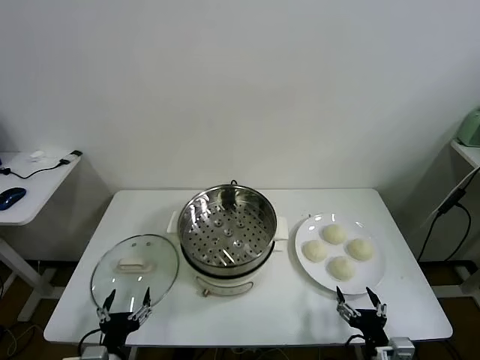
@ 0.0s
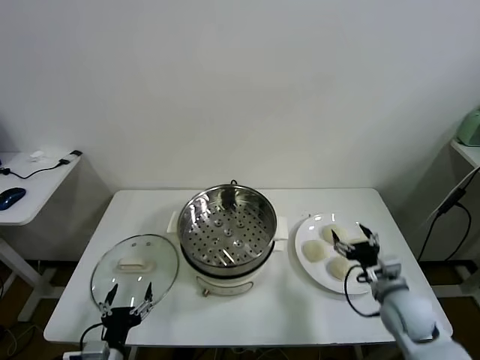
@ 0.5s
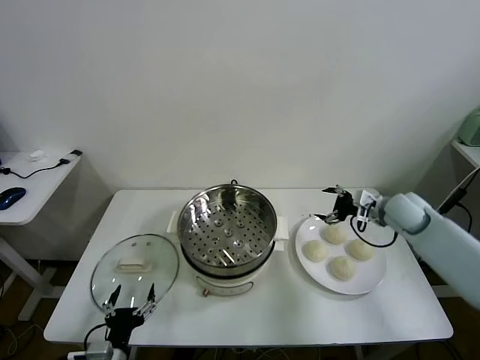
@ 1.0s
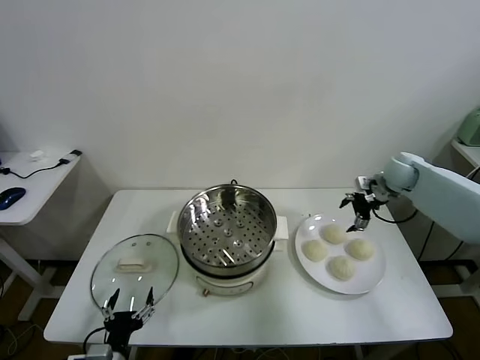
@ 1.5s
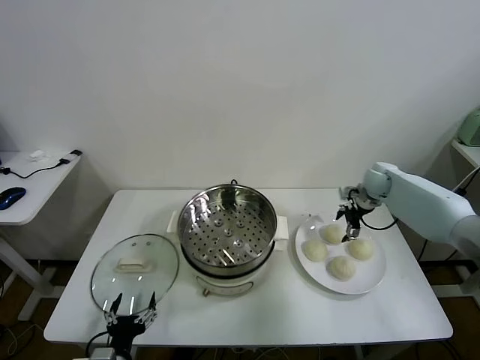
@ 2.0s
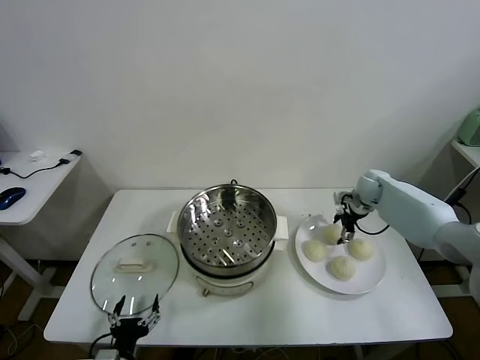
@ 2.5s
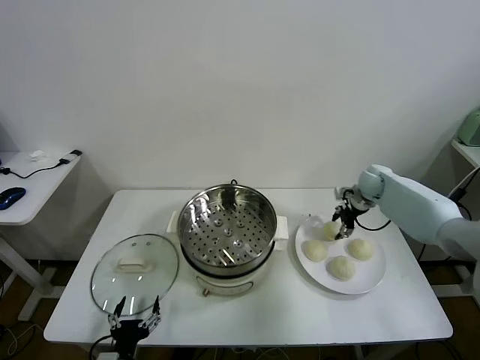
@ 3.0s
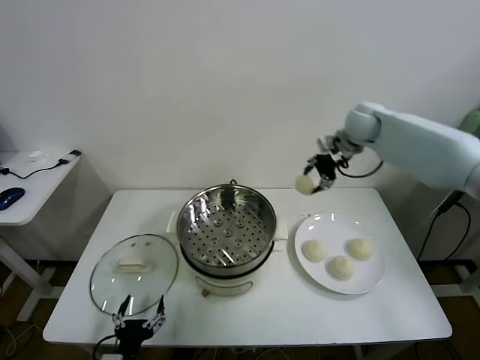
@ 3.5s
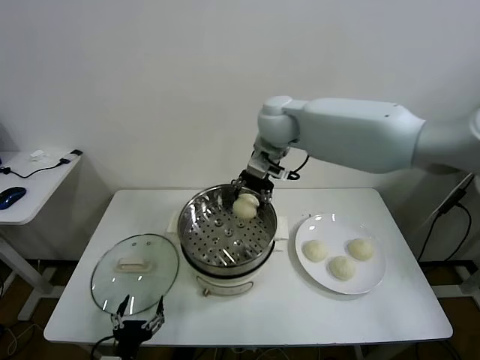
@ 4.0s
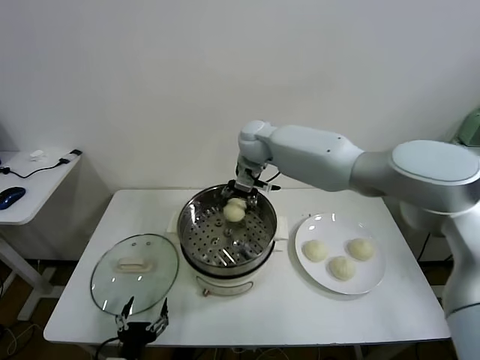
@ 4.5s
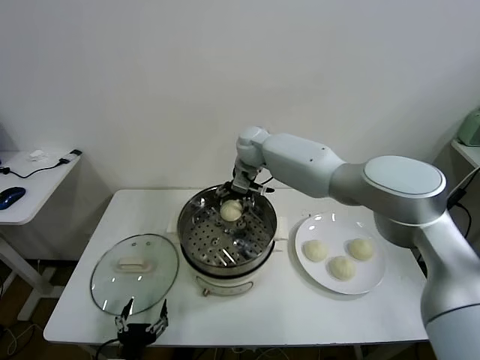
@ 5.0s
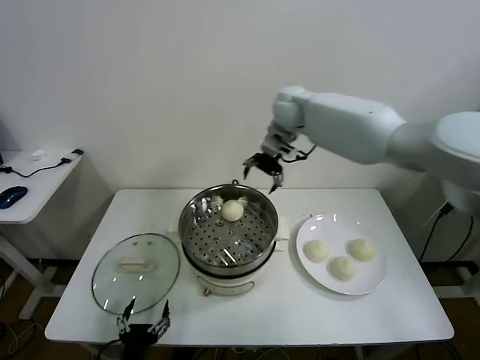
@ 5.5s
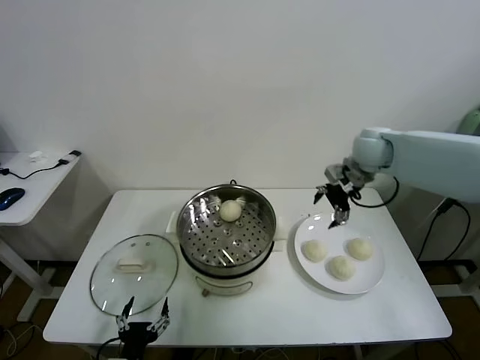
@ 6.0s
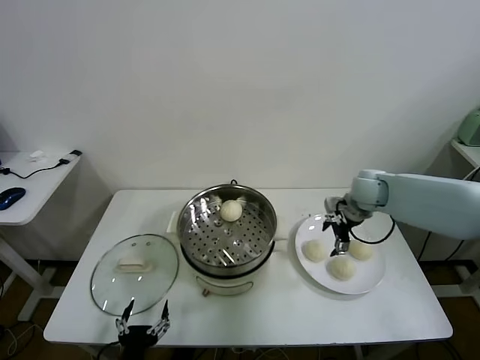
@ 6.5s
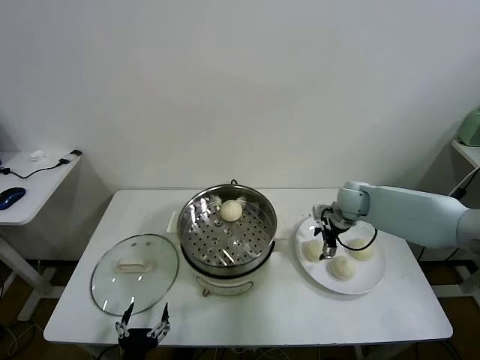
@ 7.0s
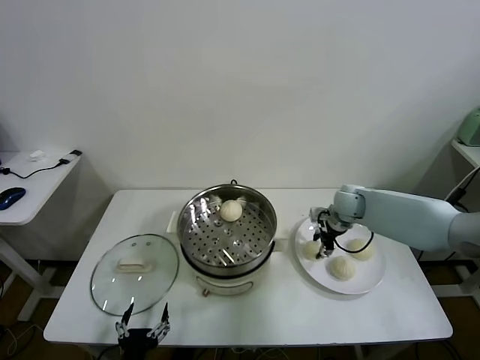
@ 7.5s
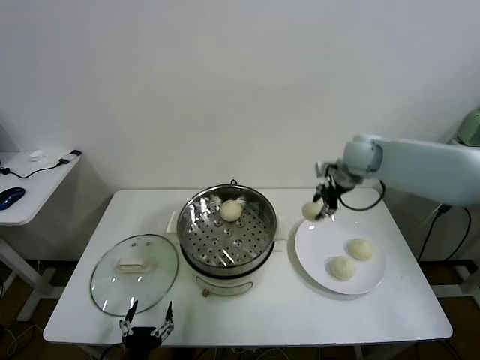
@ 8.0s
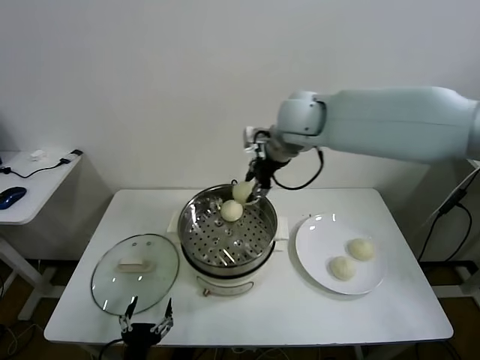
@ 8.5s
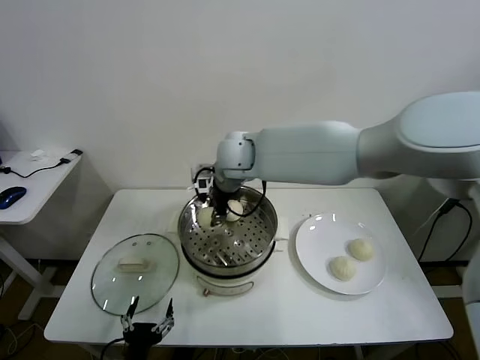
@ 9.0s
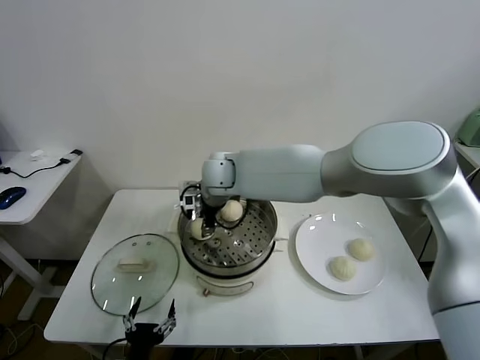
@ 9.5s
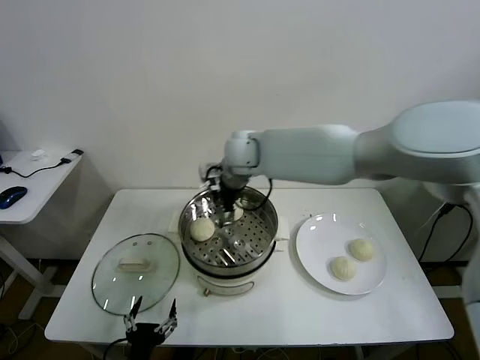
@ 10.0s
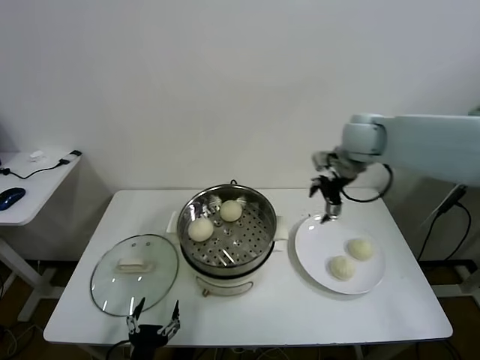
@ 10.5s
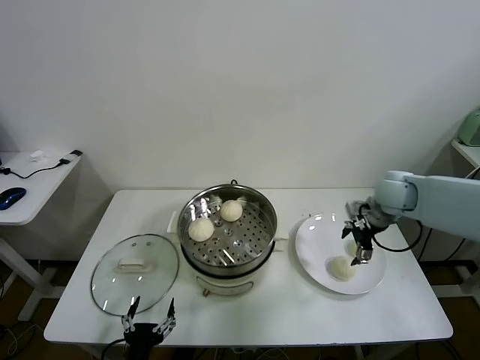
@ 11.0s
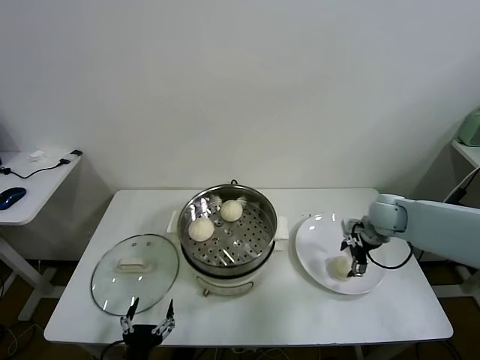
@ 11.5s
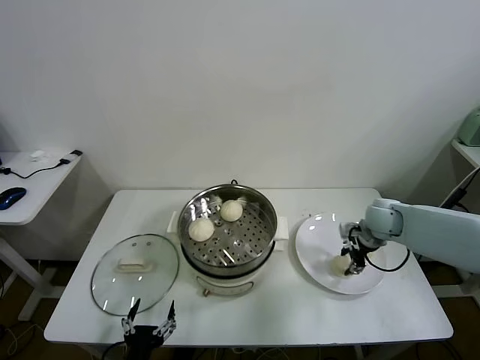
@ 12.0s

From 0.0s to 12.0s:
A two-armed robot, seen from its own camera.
Task of the whole recording: take steamed baozi put them in steamer.
Step, from 0.0s to 2.5s: Grasp the baozi in the plate with right gripper.
Step, from 3.0s to 5.0s: Place the baozi on the steamer with right gripper.
Step, from 5.5s to 7.5s: Grasp the baozi in the plate with right gripper.
Step, from 8.0s to 9.5s: Place the baozi on the steamer with right gripper.
Step, from 10.0s to 12.0s: Grasp the baozi in the plate with right gripper.
From 2.0s to 4.0s: The right gripper shifts some 40 cm to the left and upward, and closes.
From 4.0s to 6.0s: The right gripper is displaced to the right by roughly 25 cm, and opens.
From 6.0s to 8.0s: The right gripper reaches roughly 15 cm downward, then returns, and closes its fingers.
From 8.0s to 10.0s: The right gripper travels to the left by roughly 25 cm, and opens its fingers.
From 10.0s to 12.0s: The right gripper goes some 35 cm to the right and downward, and closes.

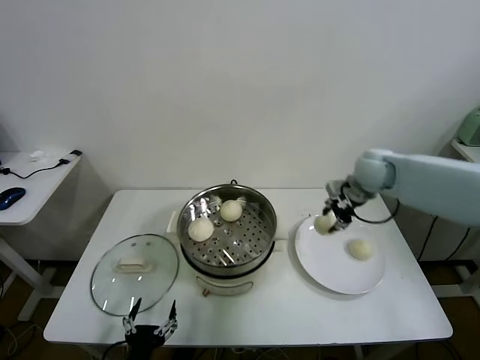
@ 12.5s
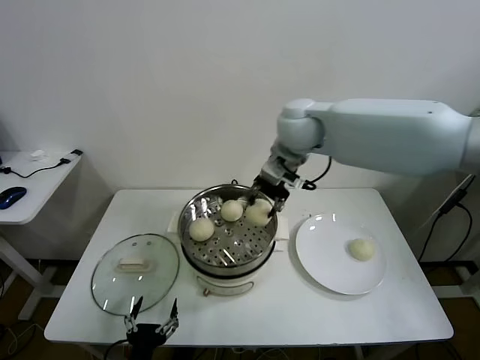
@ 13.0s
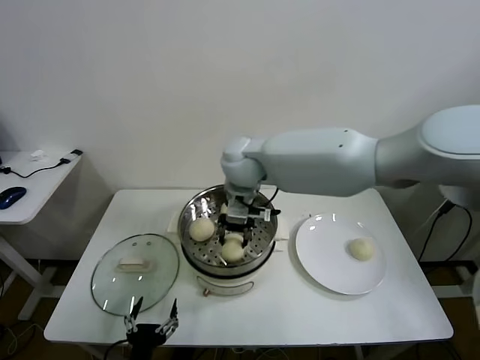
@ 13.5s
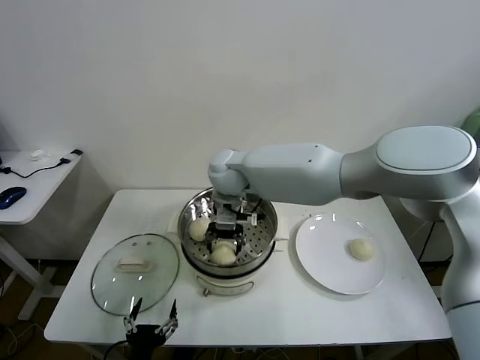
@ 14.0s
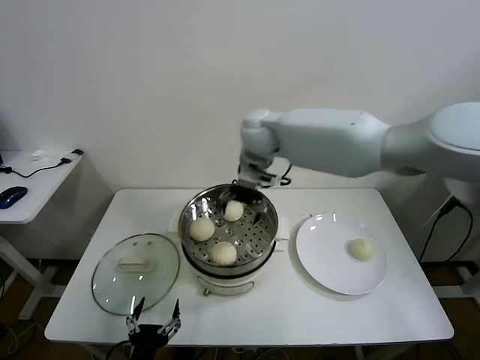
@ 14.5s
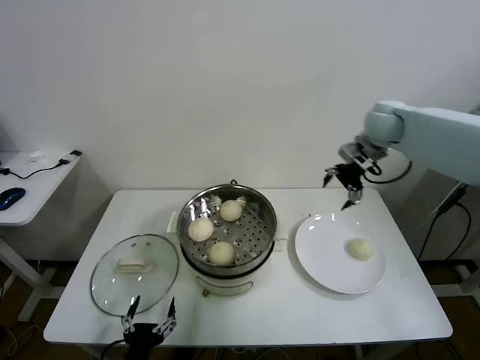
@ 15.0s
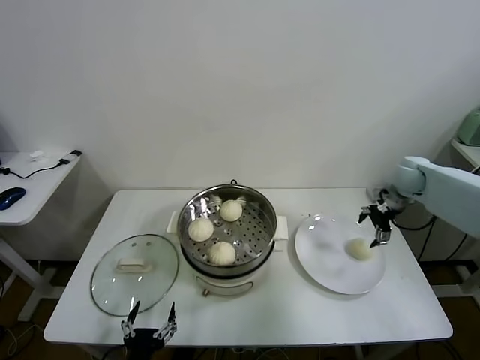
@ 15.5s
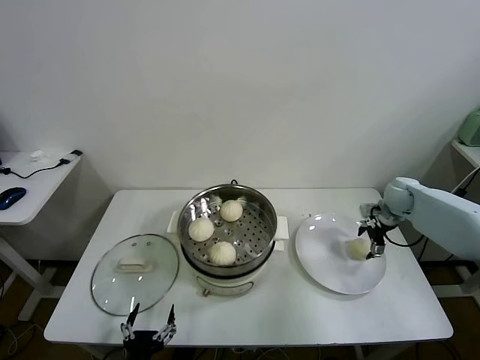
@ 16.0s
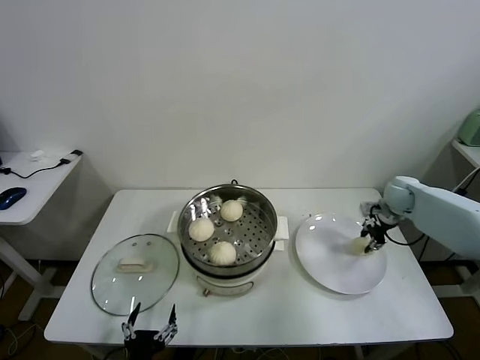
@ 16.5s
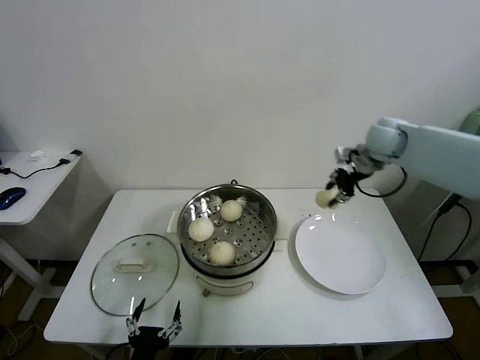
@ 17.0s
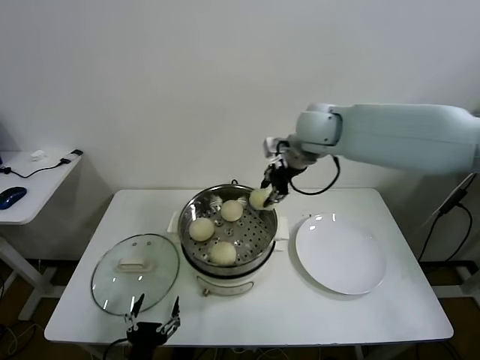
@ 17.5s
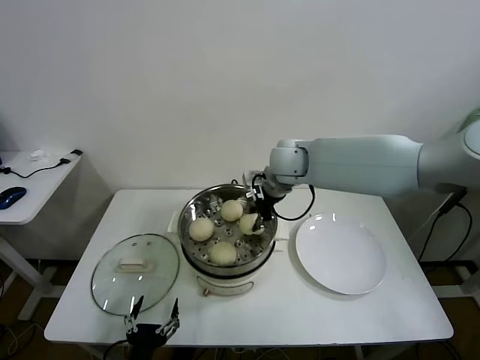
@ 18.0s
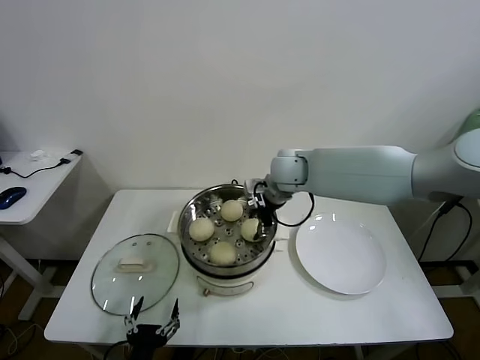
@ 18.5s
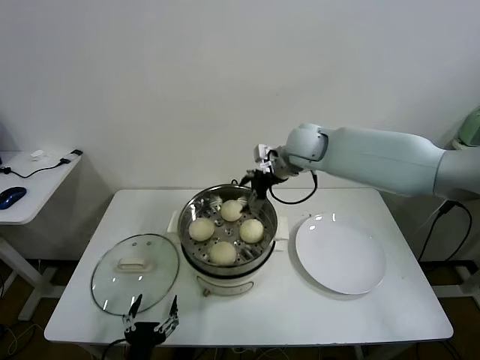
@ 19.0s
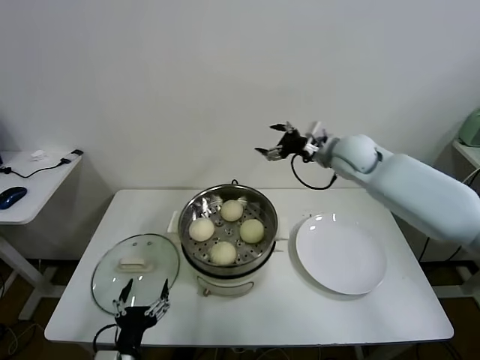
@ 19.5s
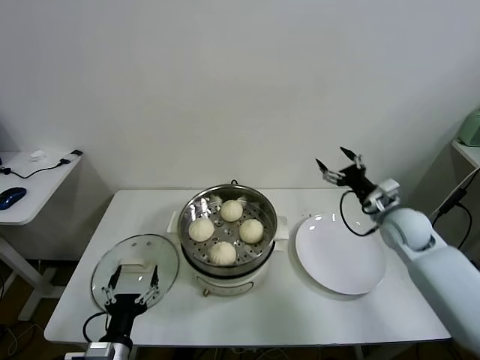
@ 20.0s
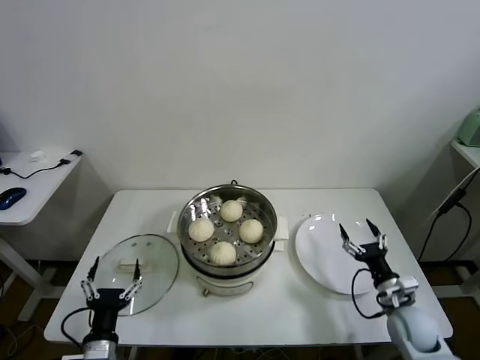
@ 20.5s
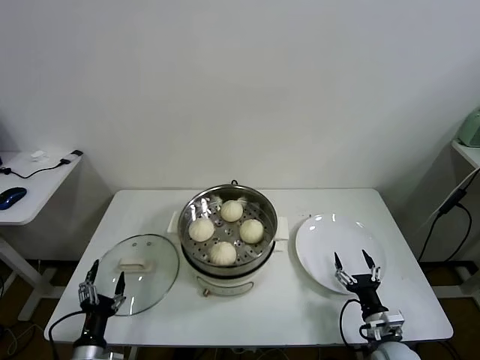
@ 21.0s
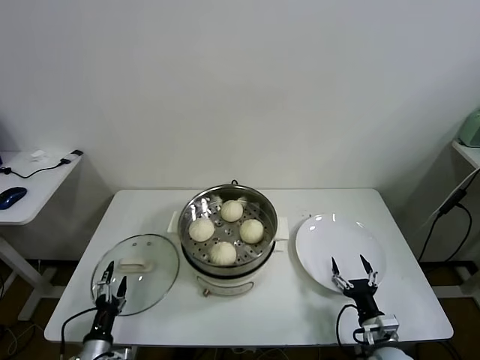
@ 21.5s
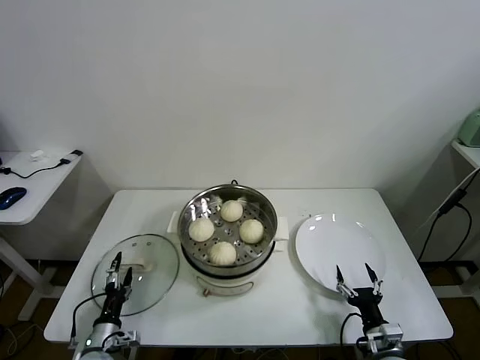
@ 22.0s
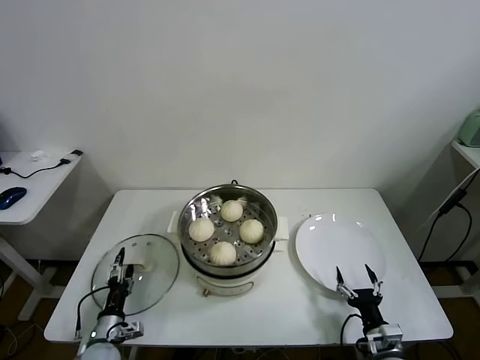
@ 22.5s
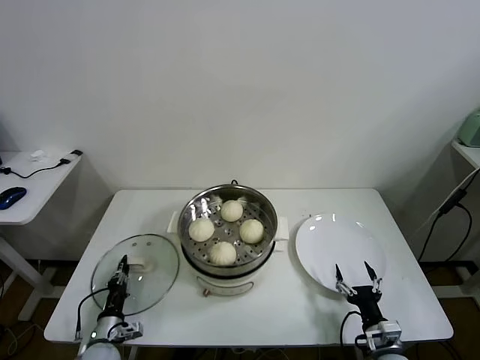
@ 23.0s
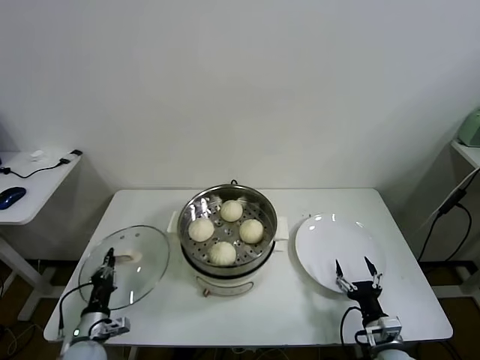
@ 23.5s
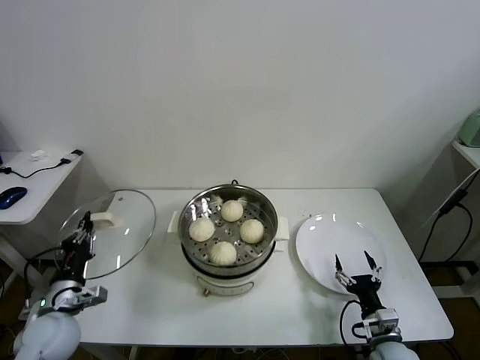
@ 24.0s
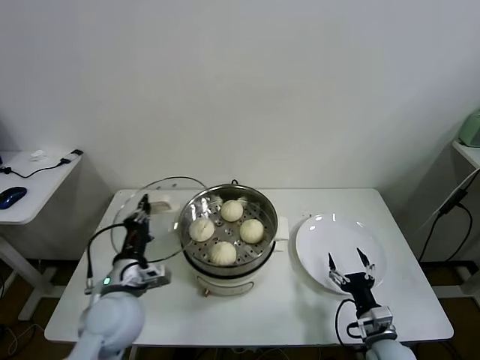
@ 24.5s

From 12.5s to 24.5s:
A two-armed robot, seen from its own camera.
Task of the whole recording: take steamed baozi put them in steamer.
Step, from 12.5s to 14.0s: Place the baozi on the steamer with right gripper.
Step, from 14.5s to 16.0s: Grasp the baozi in the plate with right gripper.
Step, from 16.5s to 18.5s: Place the baozi on the steamer with right gripper.
Step, from 19.0s to 23.0s: Grasp the pot lid with left gripper.
From 12.5s to 14.5s: The right gripper is displaced to the left by about 25 cm, and opens its fingers.
From 14.5s to 16.5s: The right gripper heads to the right and downward, covering roughly 40 cm, and closes its fingers.
From 16.5s to 18.5s: The right gripper shifts roughly 30 cm to the left, and opens.
From 18.5s to 20.5s: The right gripper travels to the right, downward and backward by about 40 cm, and opens up, while the left gripper goes about 5 cm to the left.
From 20.5s to 22.5s: The right gripper goes roughly 15 cm backward, downward and to the left; the left gripper shifts some 15 cm downward, forward and to the left.
From 22.5s to 24.5s: The left gripper shifts approximately 25 cm upward and to the right, and closes up.

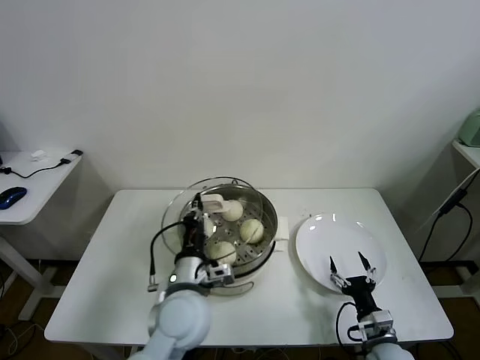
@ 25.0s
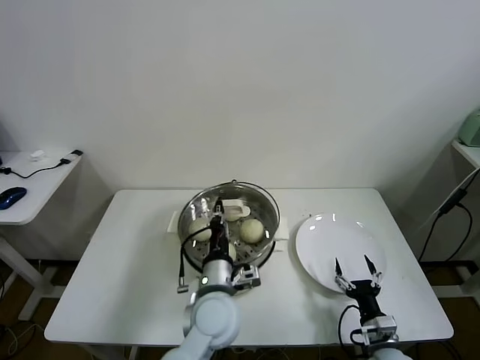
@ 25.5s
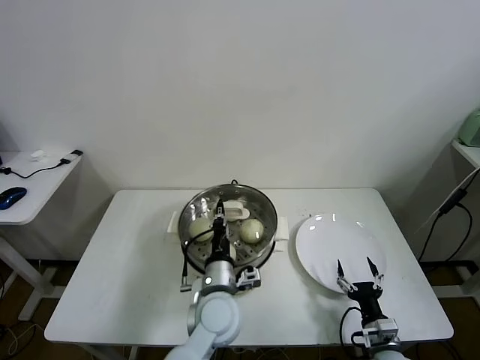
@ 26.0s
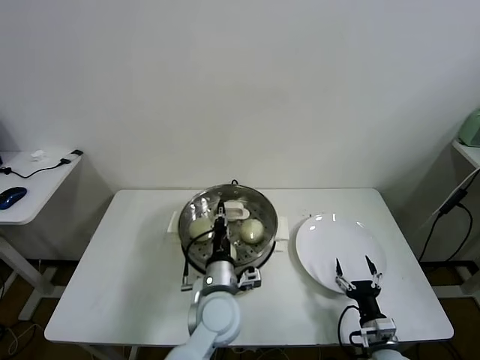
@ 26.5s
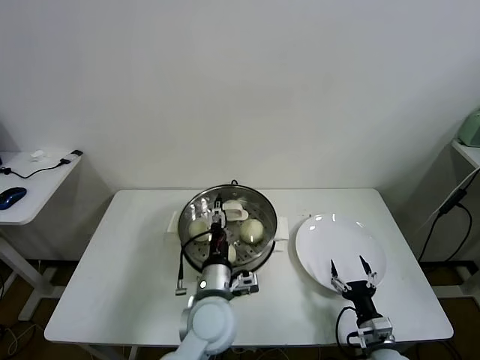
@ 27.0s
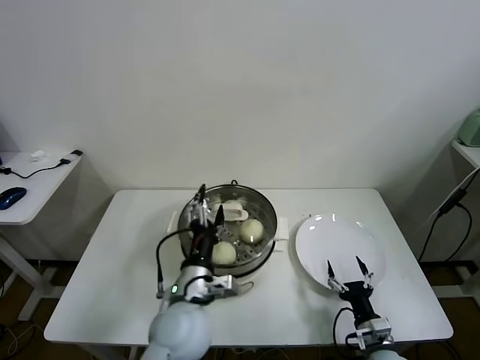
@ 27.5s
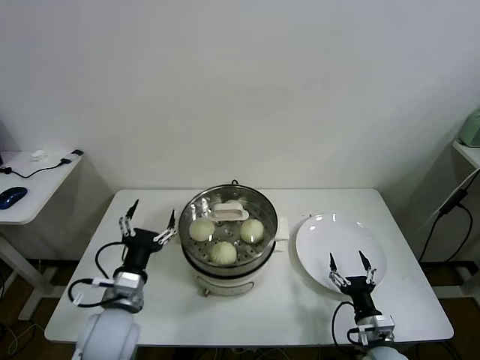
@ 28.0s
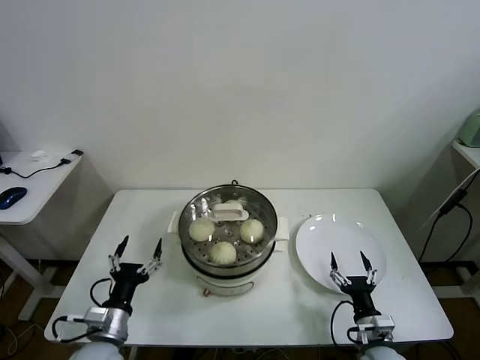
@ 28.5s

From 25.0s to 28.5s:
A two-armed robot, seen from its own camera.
Task of the whole recording: take steamed baozi put them in steamer.
From 25.0s to 27.0s: The left gripper is displaced to the right by approximately 5 cm, and opens up.
From 27.0s to 28.5s: The left gripper goes approximately 25 cm to the left, and opens its fingers.
